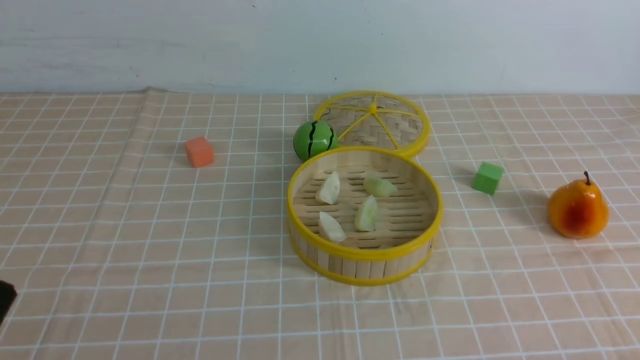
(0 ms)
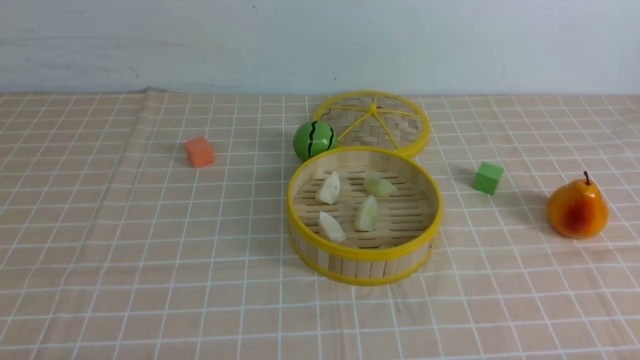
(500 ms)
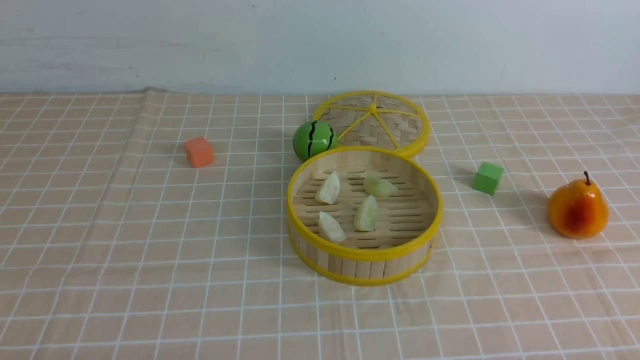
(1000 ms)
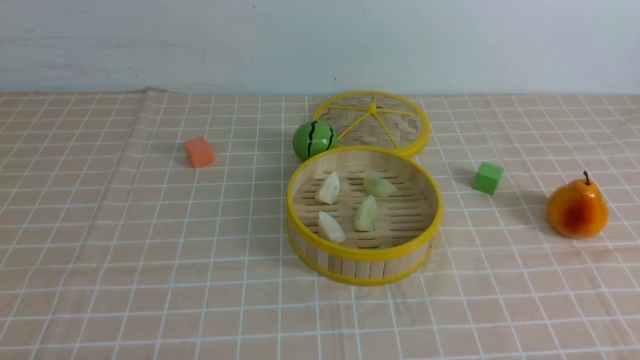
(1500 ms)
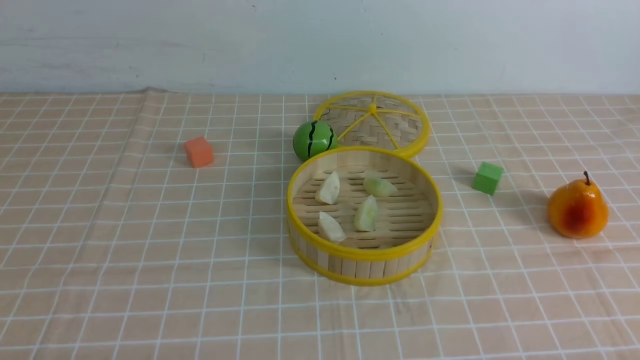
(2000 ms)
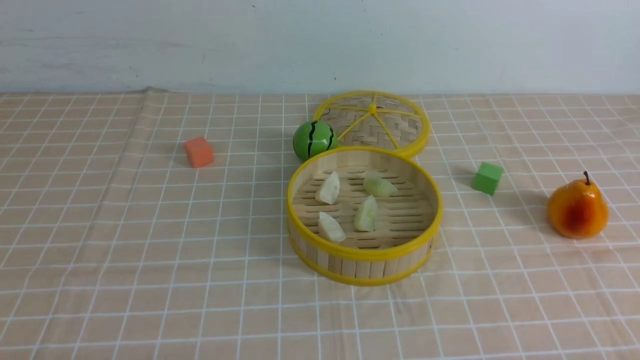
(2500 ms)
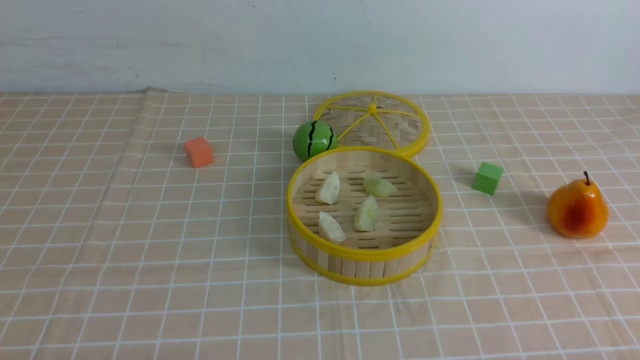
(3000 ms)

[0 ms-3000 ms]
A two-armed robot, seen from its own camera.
Task of the whole recording: put the dumplings into the steamer on the table with the brown tablecloth.
1500 ms to 3000 ms: Both grippers stay put.
